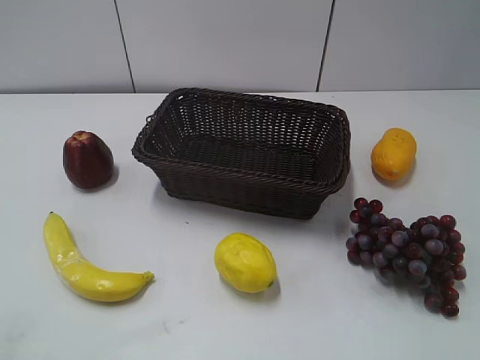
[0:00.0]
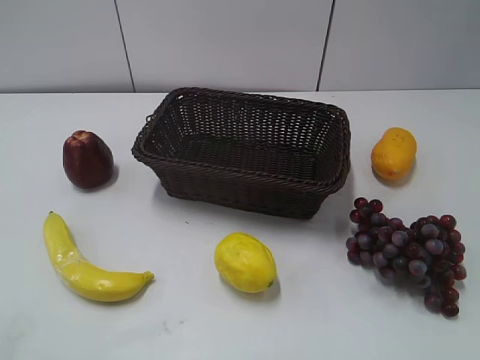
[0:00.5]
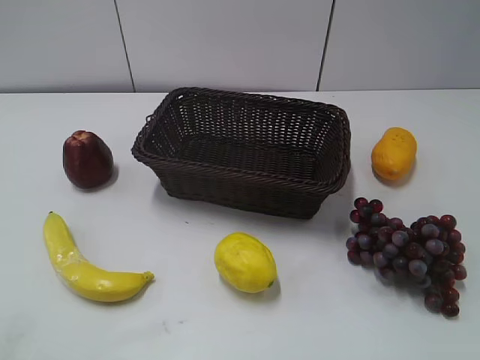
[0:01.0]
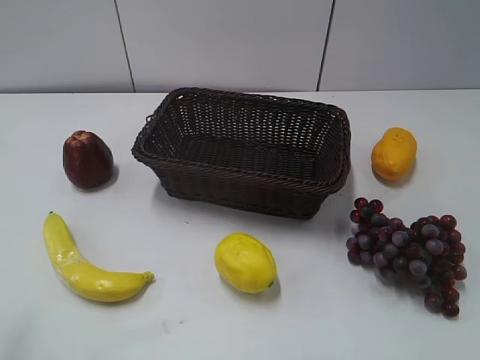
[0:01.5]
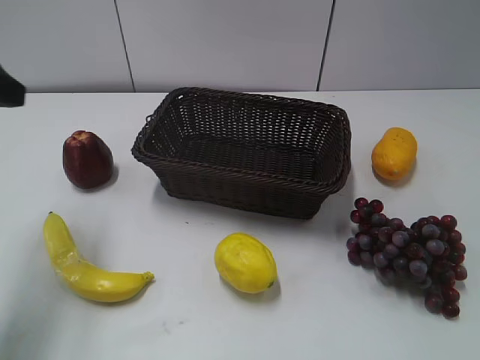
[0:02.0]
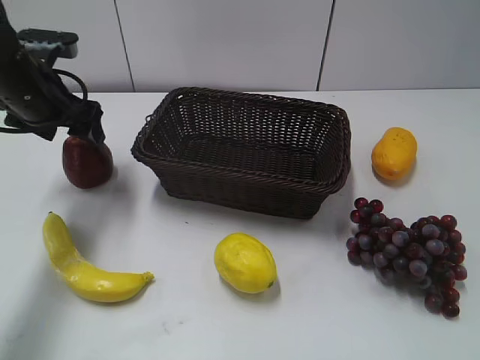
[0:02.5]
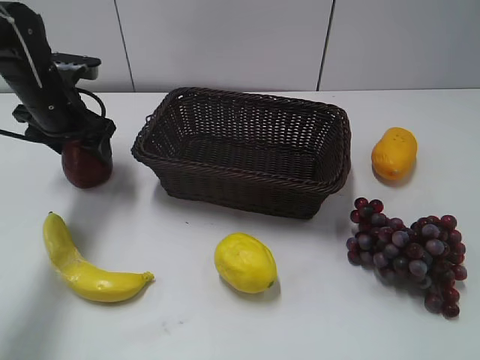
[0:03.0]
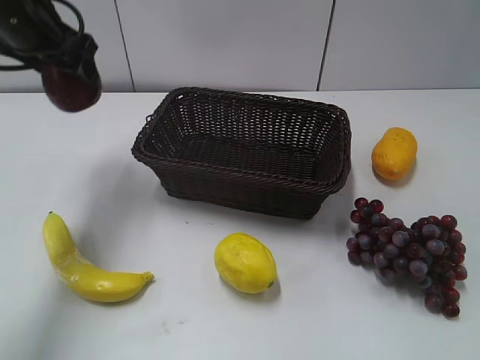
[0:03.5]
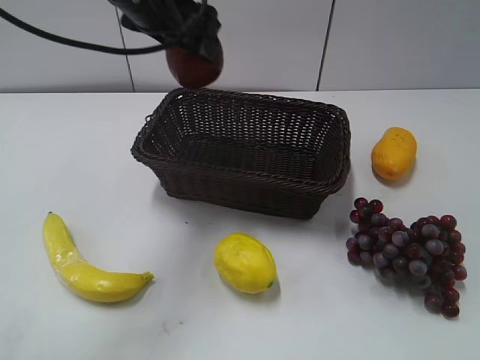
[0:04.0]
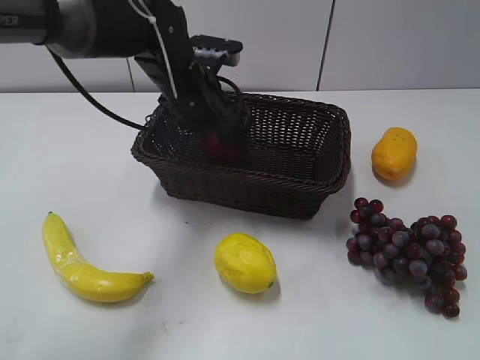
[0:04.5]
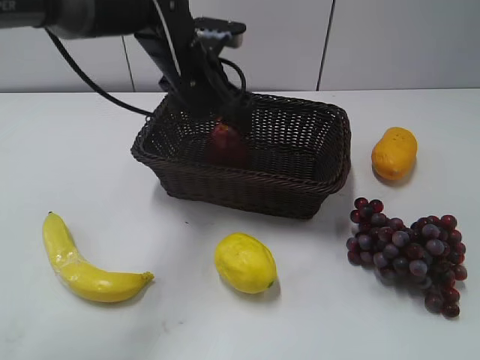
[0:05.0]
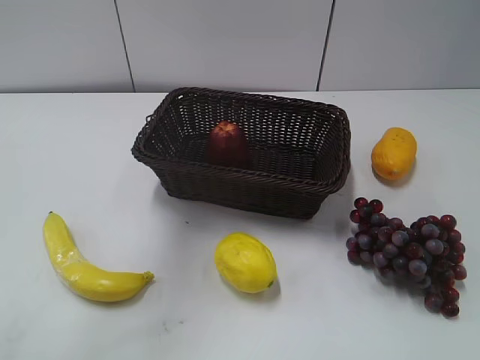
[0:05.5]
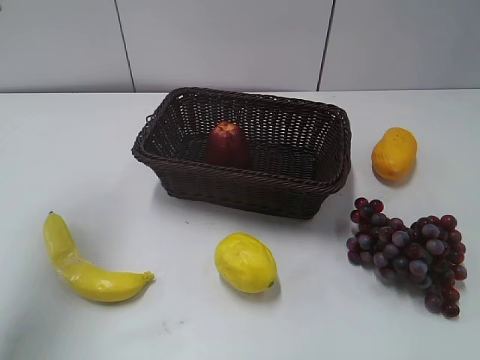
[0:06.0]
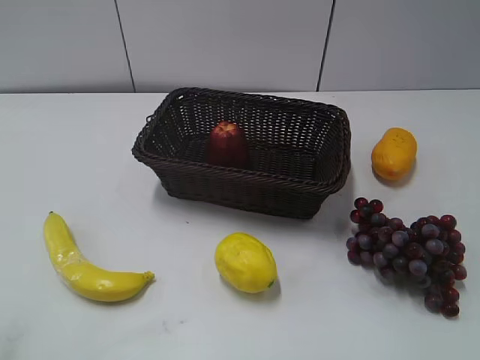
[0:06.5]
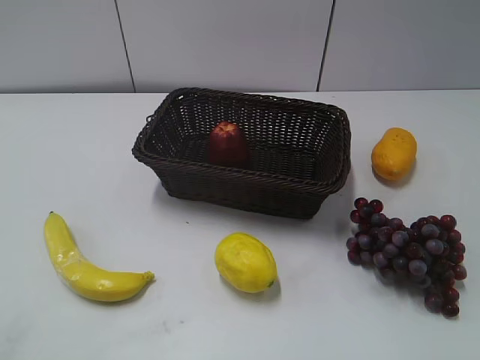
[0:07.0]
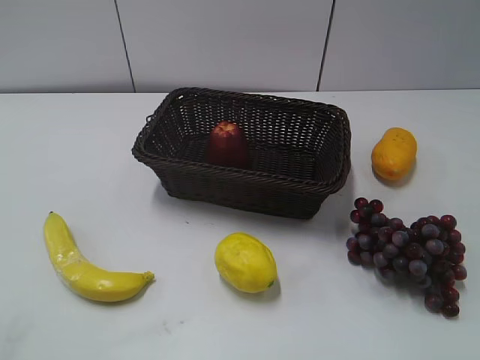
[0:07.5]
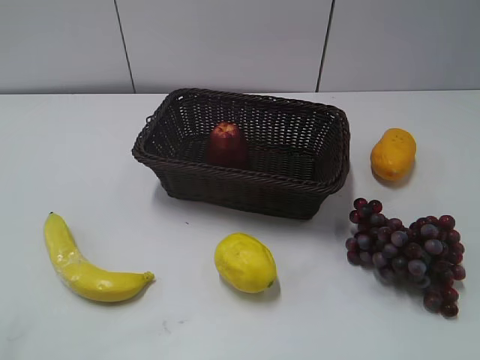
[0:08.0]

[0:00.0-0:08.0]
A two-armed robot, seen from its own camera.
Step, 0:02.0 to 0:02.5: Grasp the apple with left gripper.
Step, 0:03.0 to 0:04.5: Place the apple in the basket with left gripper.
0:02.0 to 0:04.0: The left gripper moves to the right and forward, approximately 25 cm.
0:04.0 to 0:06.0: The left gripper goes roughly 25 cm to the left, upward and backward.
0:06.0 to 0:08.0: The left gripper is displaced backward and downward by roughly 30 cm.
